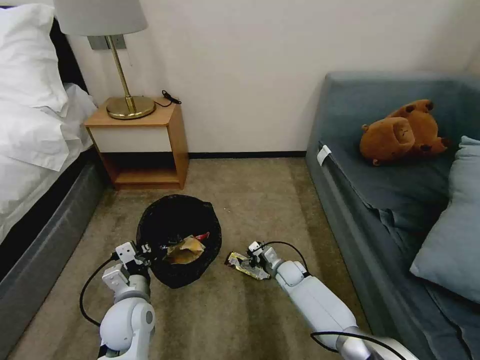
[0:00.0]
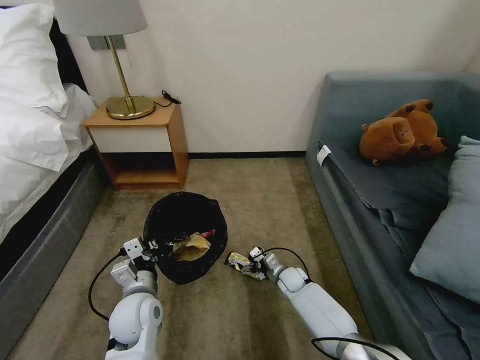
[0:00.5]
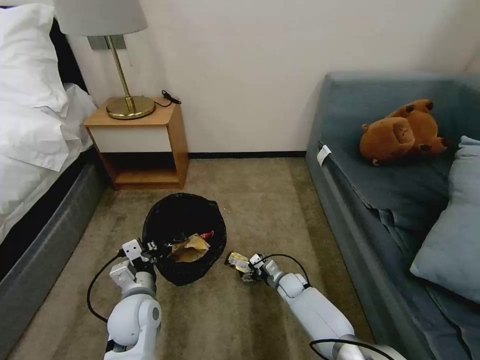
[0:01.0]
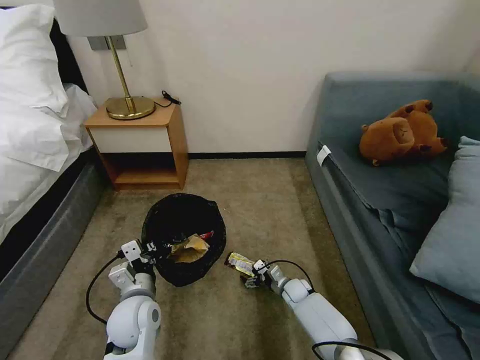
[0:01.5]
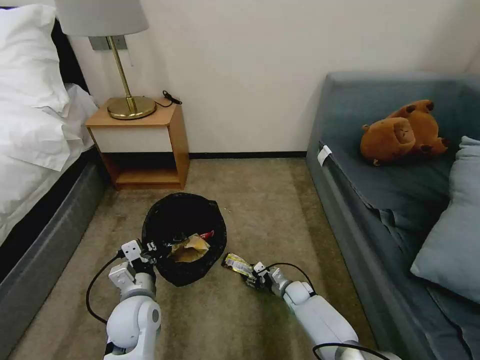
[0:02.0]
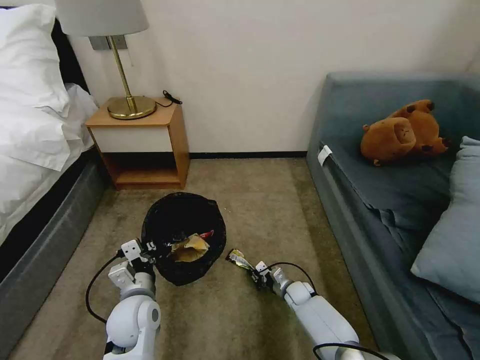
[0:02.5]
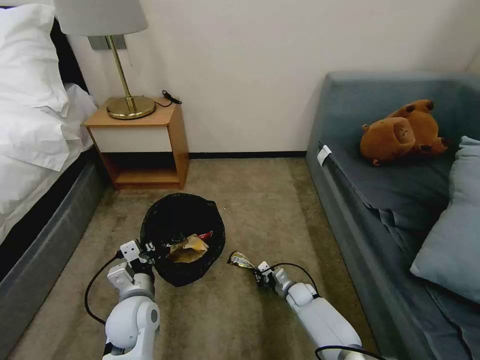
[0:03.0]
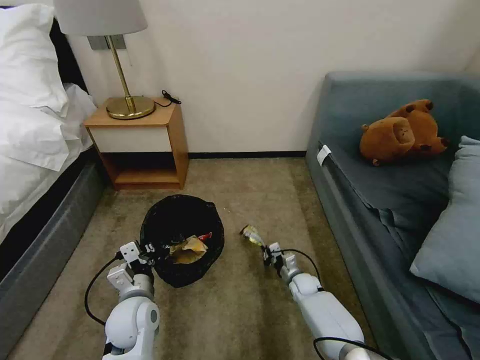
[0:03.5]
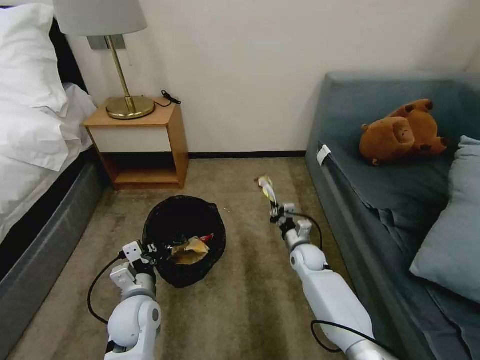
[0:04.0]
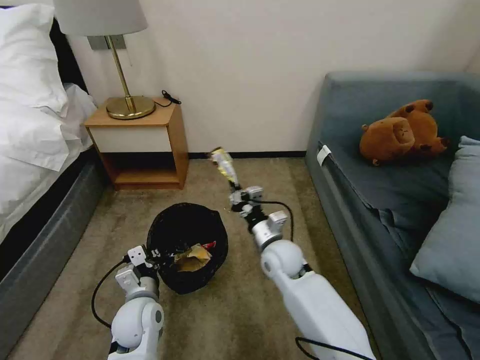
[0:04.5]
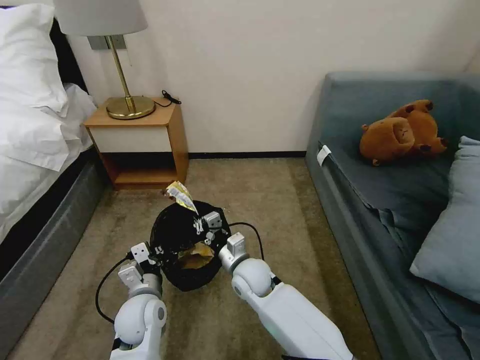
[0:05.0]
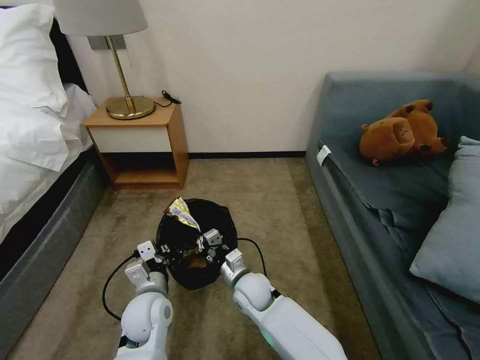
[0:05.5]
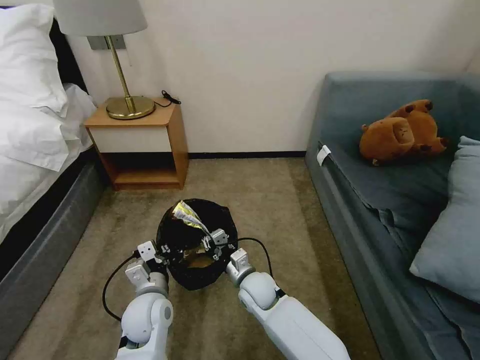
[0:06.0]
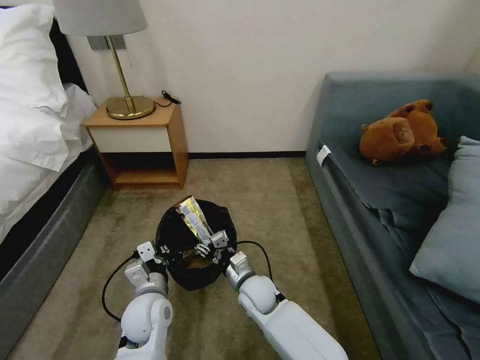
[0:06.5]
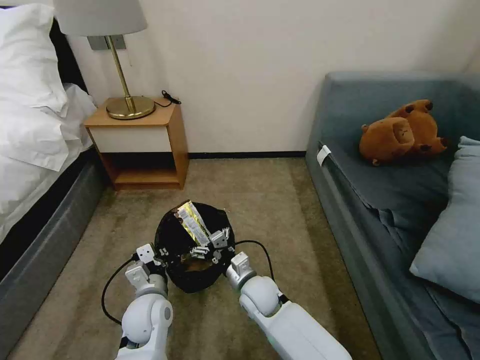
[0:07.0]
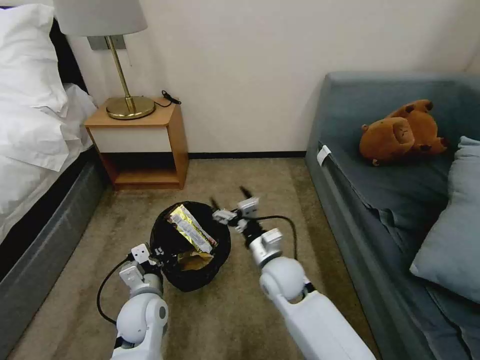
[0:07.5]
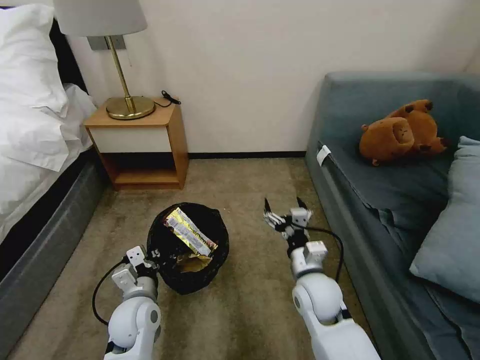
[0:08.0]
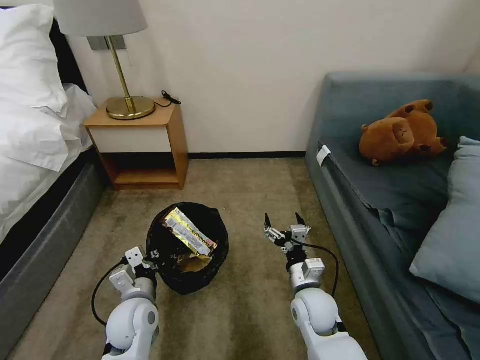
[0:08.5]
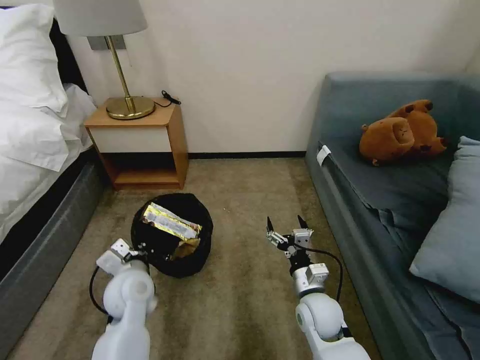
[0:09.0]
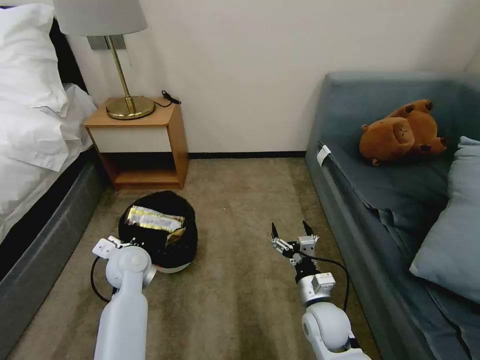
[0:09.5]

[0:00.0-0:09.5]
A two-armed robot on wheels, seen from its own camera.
Task of the whole recording: Pick up the trash bin, then pick up the garbage on the floor and place it into the trash bin.
0:00.0 to 0:02.0: The right gripper goes approximately 5 cm downward, and closes.
0:02.0 to 0:04.0: The right gripper goes roughly 15 cm upward, and closes.
0:04.0 to 0:05.5: The right gripper goes roughly 20 cm to the left and backward.
0:05.5 to 0:07.5: The right gripper moves upward and to the right, some 10 cm, and opens its fingers.
0:07.5 to 0:09.5: The left gripper goes roughly 10 cm forward. Meanwhile the right gripper heads to the right, backward and downward, covering roughly 15 cm.

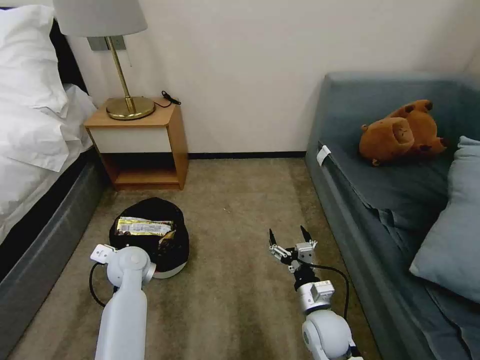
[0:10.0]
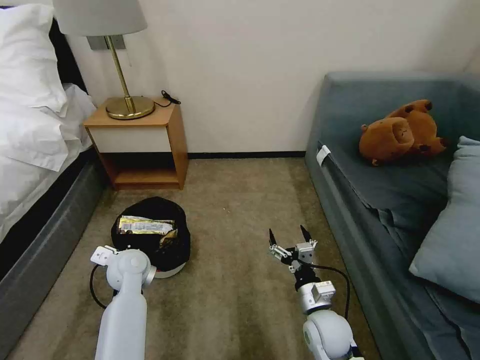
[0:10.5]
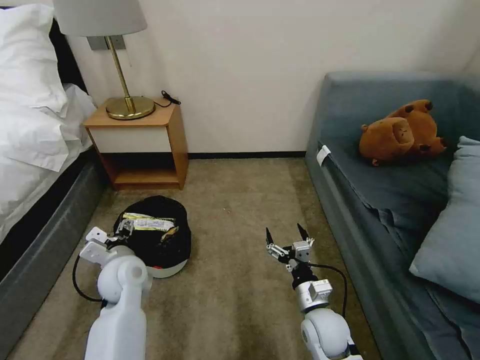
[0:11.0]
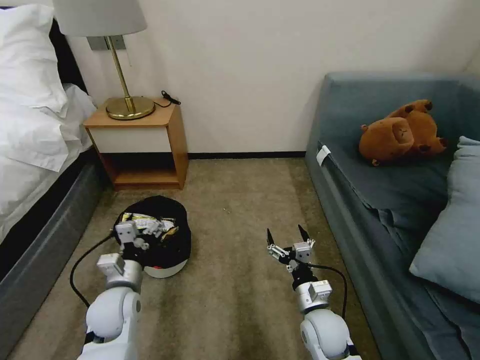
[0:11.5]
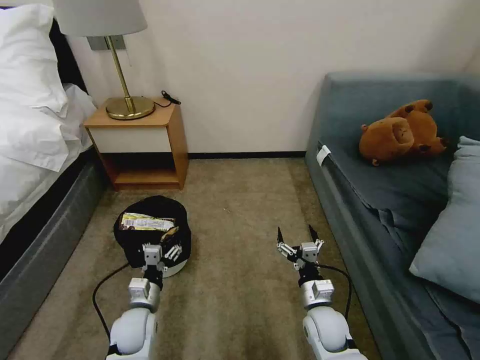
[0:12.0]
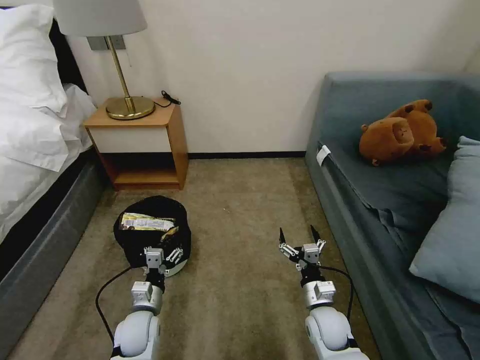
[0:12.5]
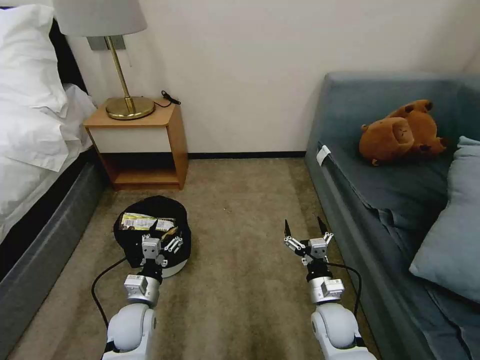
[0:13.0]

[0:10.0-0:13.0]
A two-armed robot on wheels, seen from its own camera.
Task of the whole recording: Pick up the trash bin, then pick up the garbage on the floor and place it into the trash bin.
0:10.0 to 0:11.5: The left gripper heads backward, covering approximately 10 cm, and opens.
0:11.5 to 0:13.0: The left gripper is displaced downward by roughly 5 cm.

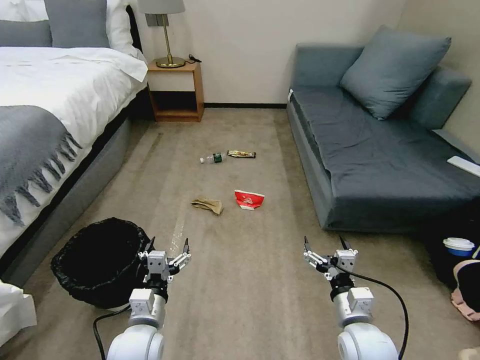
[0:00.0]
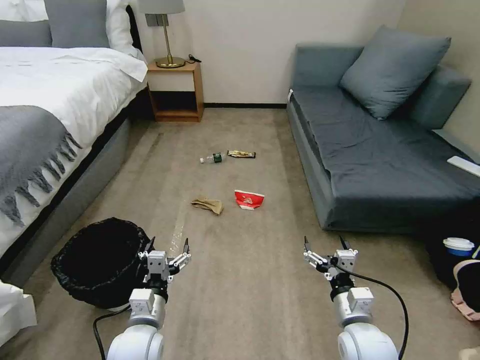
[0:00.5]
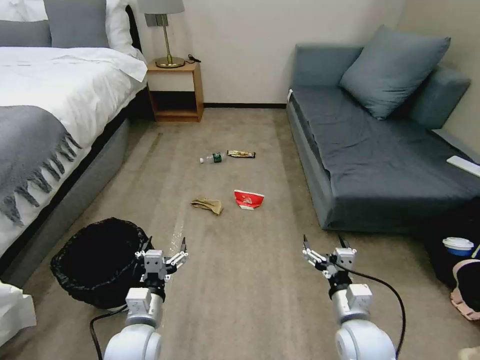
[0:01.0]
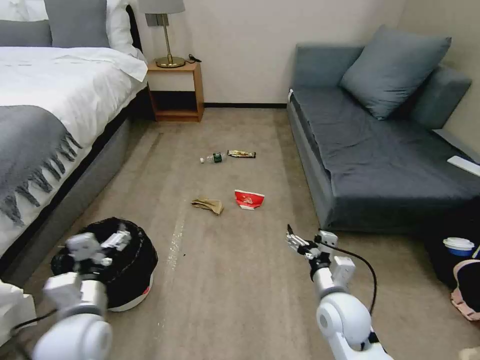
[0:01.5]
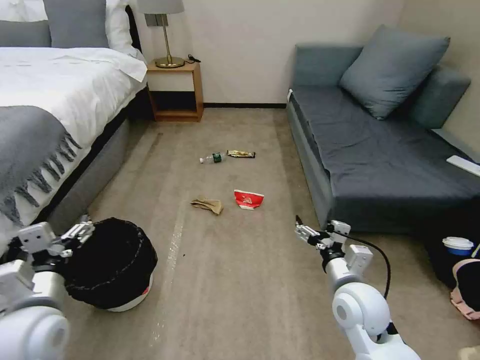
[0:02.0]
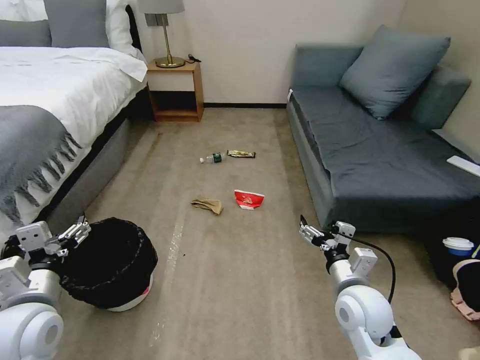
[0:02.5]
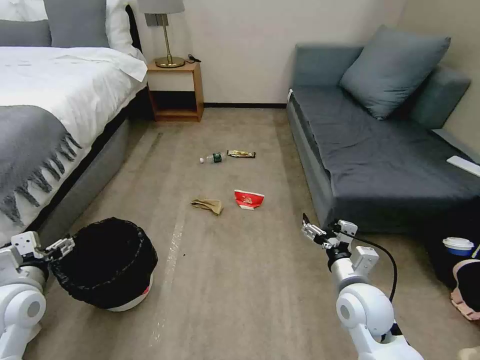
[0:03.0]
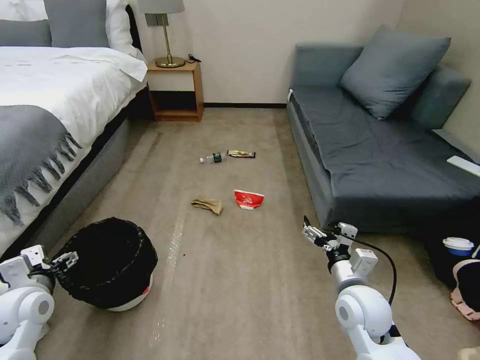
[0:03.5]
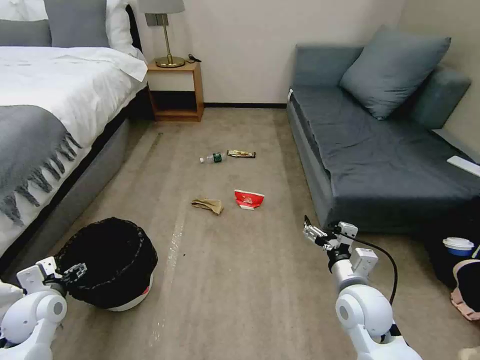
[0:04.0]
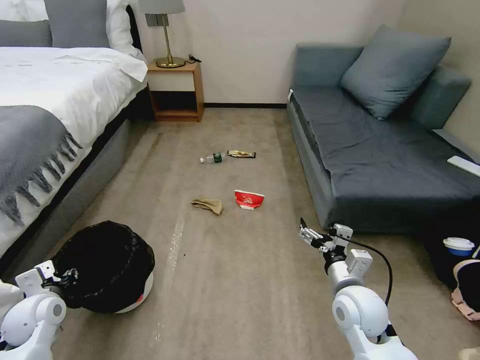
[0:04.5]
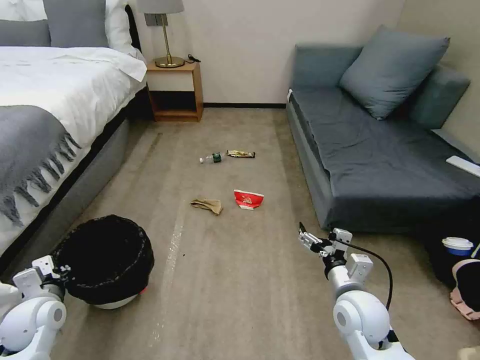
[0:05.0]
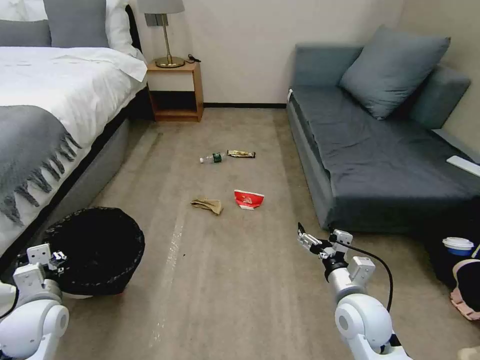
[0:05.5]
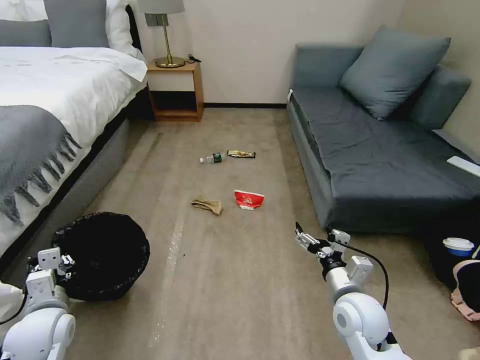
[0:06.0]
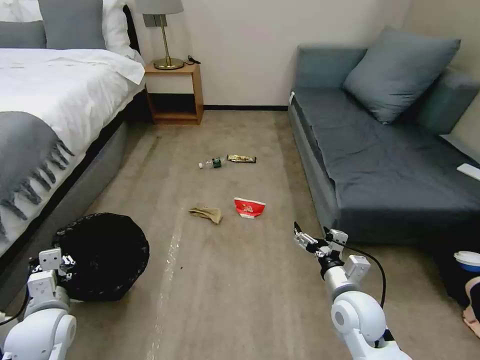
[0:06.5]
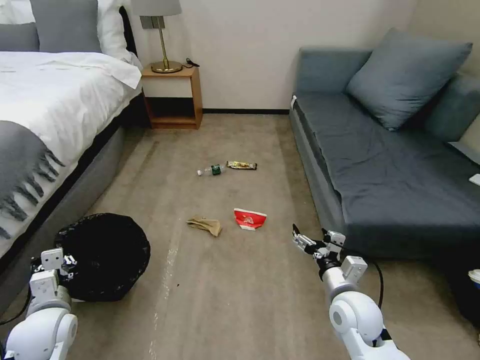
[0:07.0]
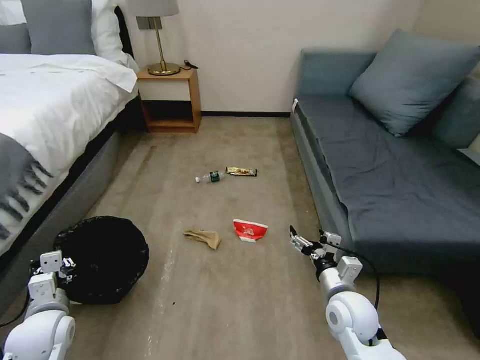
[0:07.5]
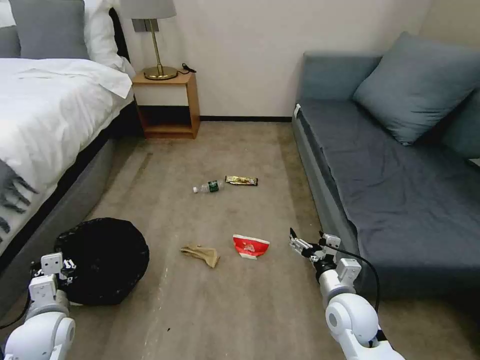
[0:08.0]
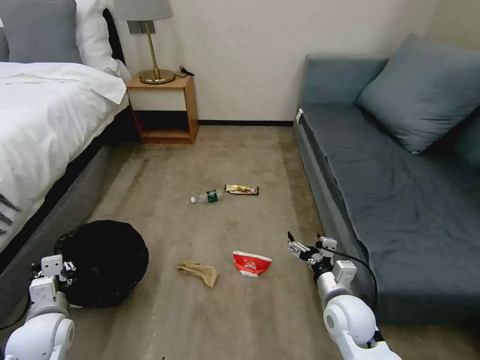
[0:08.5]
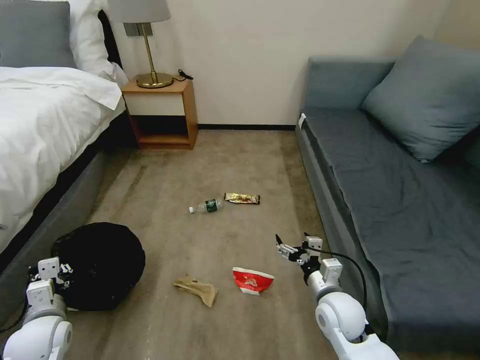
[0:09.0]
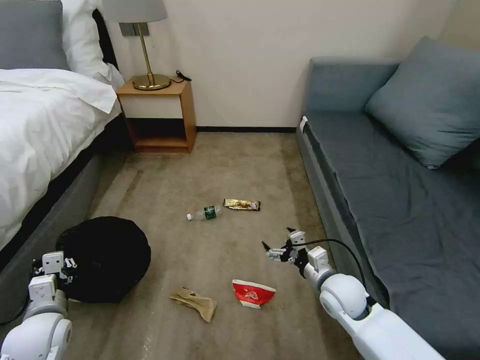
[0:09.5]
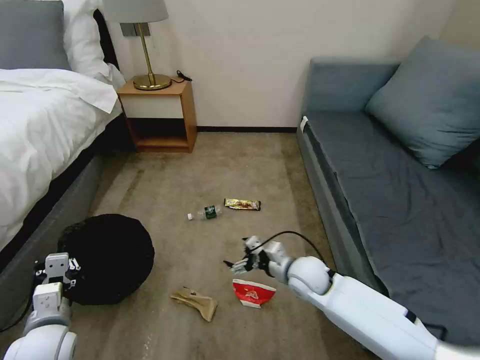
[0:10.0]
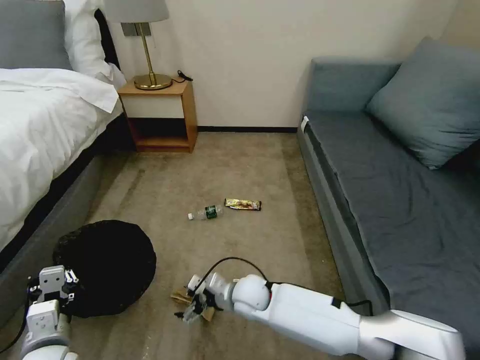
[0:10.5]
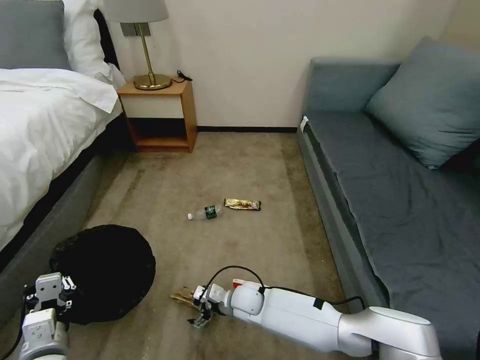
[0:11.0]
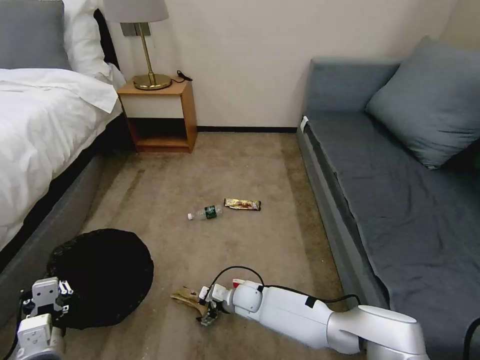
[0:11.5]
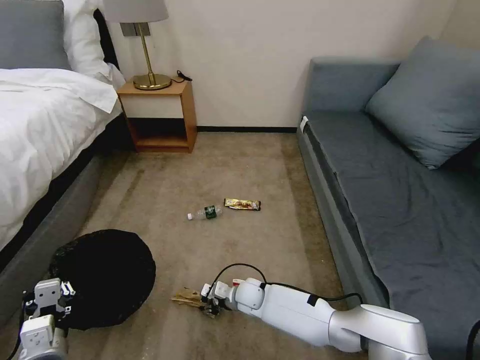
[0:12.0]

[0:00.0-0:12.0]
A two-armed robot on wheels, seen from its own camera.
Task of the whole recording: Pick up the trash bin, then pick up the garbage on the floor and place it into the trash bin.
0:02.0 to 0:04.0: The left gripper goes some 20 cm downward, to the left and forward.
0:04.0 to 0:06.0: The left gripper changes place by some 5 cm, and closes its fingers.
0:08.0 to 0:10.0: The right gripper travels forward and to the left by roughly 10 cm.
0:10.0 to 0:12.0: The left gripper moves backward, roughly 5 cm; the right gripper travels downward and to the left by roughly 20 cm, and closes its fingers.

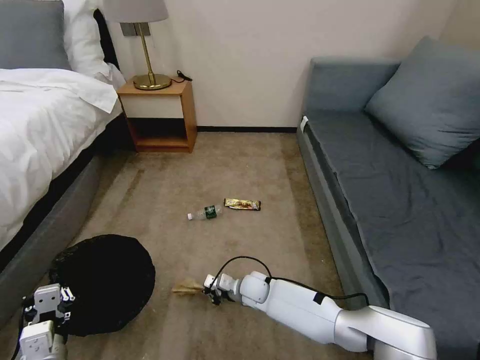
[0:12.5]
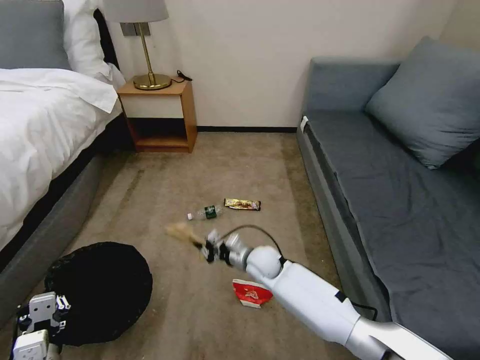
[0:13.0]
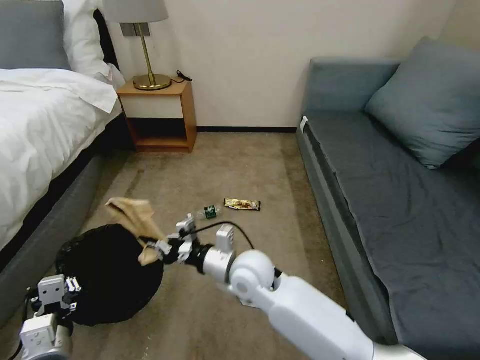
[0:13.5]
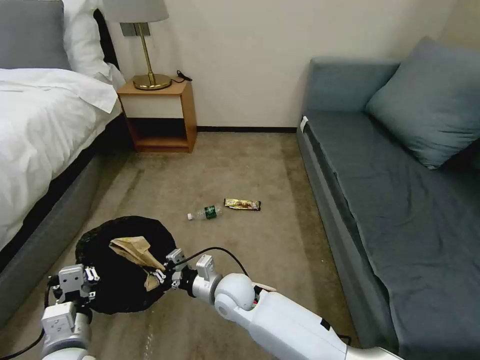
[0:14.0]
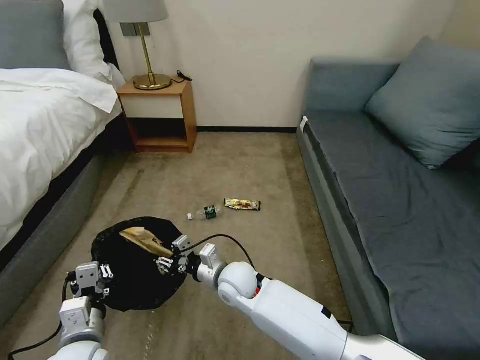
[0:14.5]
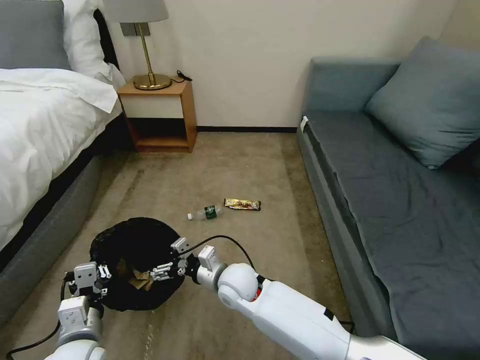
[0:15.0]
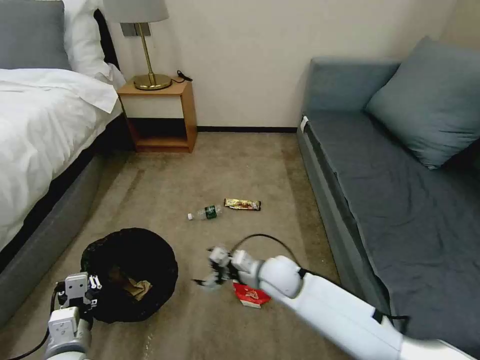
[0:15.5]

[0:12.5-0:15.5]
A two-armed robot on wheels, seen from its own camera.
Task of the whole recording: Pick up the trash bin, then pick up the garbage on the floor and place it into the trash bin.
0:12.5 to 0:14.0: The right gripper travels upward, to the left and backward by some 15 cm. The left gripper changes place by roughly 5 cm.
0:14.0 to 0:15.5: The right gripper travels to the right by about 10 cm, and opens.
